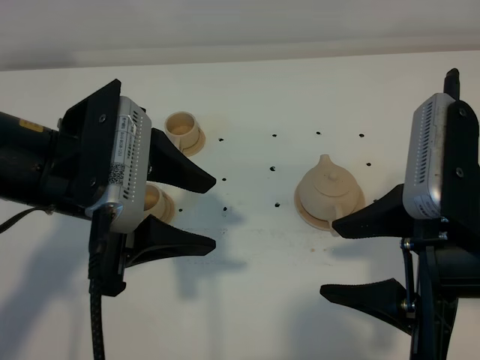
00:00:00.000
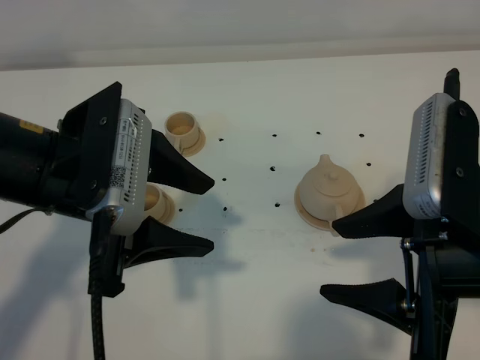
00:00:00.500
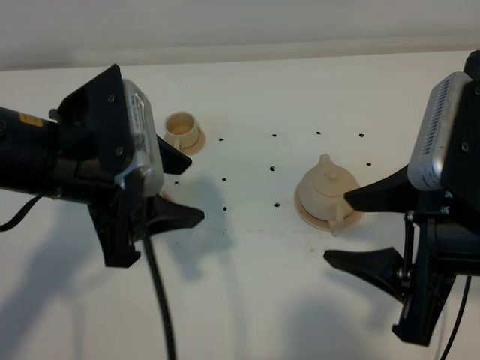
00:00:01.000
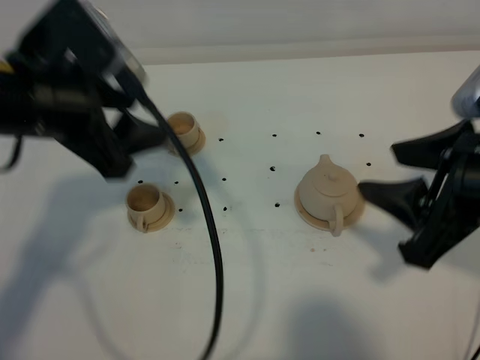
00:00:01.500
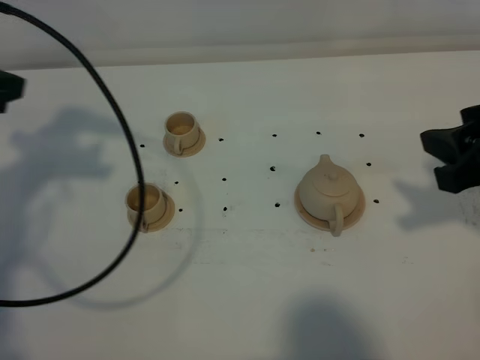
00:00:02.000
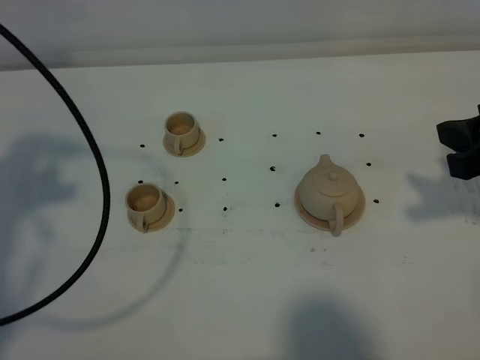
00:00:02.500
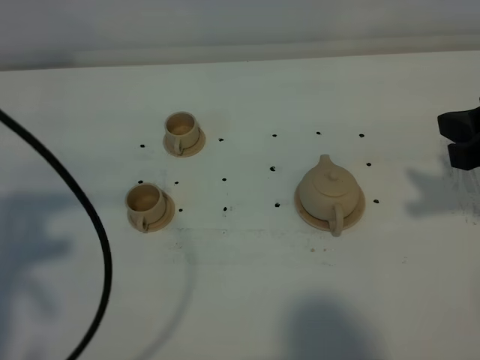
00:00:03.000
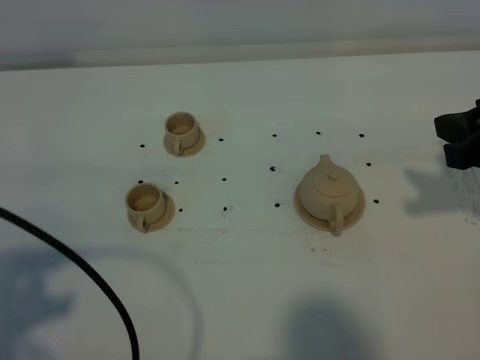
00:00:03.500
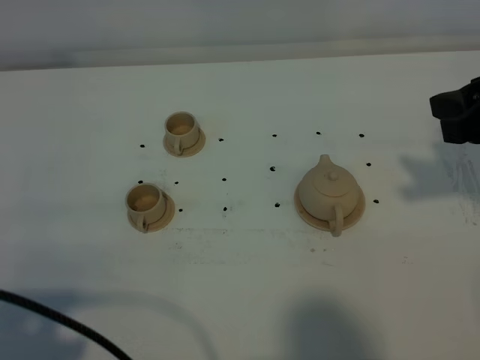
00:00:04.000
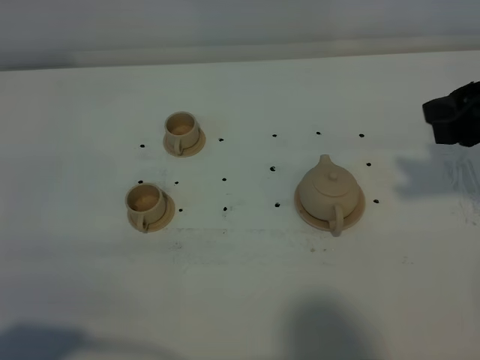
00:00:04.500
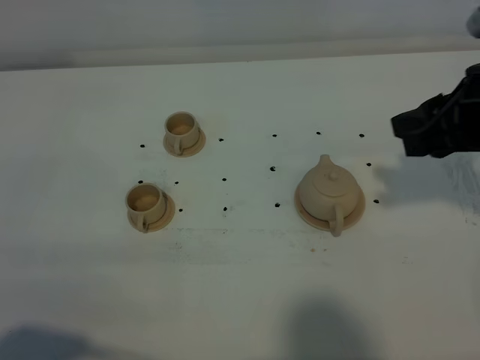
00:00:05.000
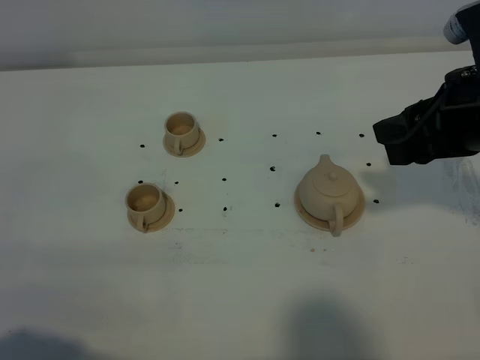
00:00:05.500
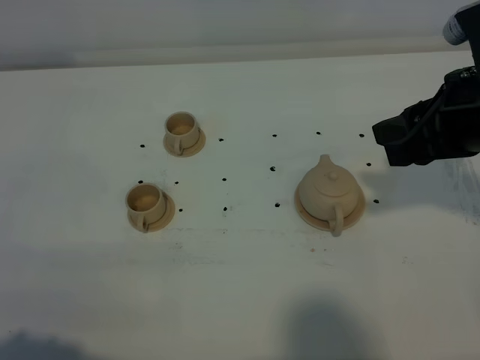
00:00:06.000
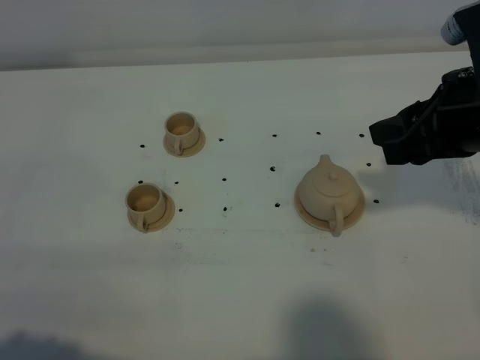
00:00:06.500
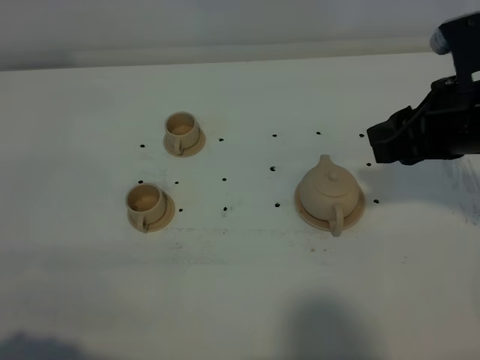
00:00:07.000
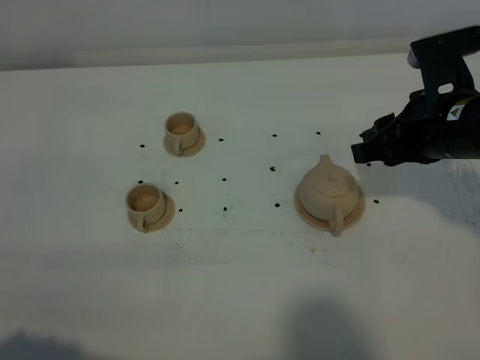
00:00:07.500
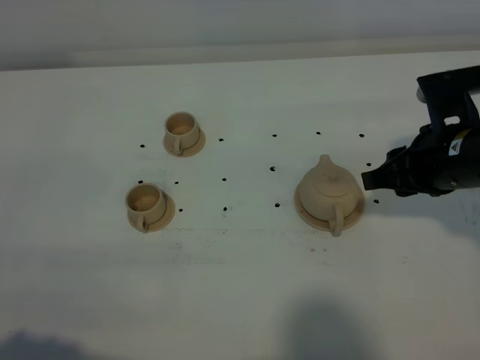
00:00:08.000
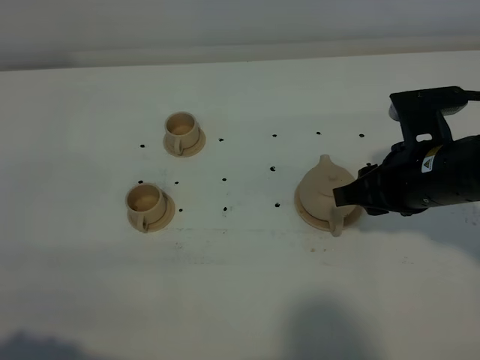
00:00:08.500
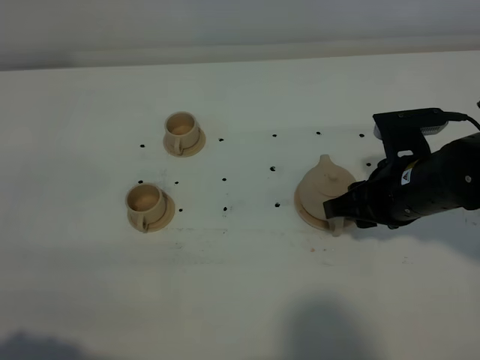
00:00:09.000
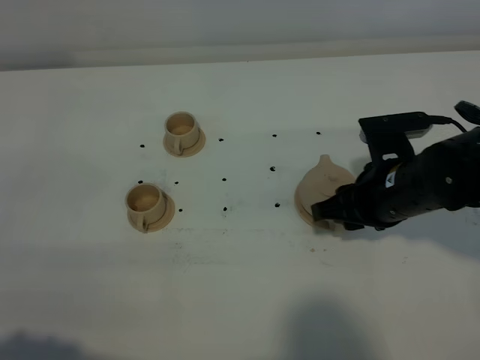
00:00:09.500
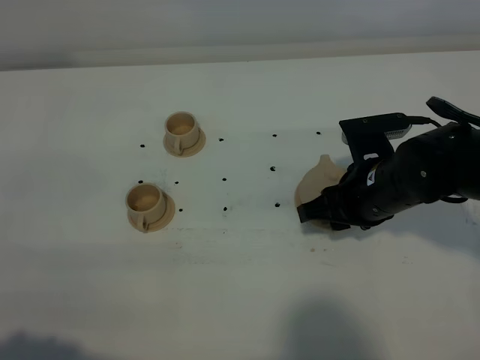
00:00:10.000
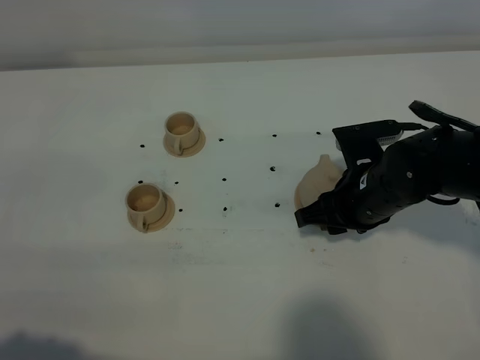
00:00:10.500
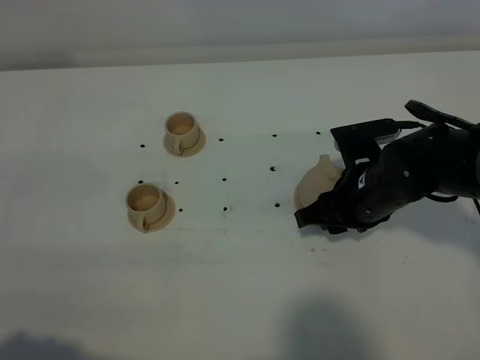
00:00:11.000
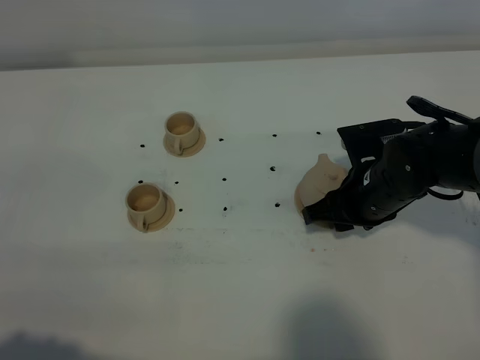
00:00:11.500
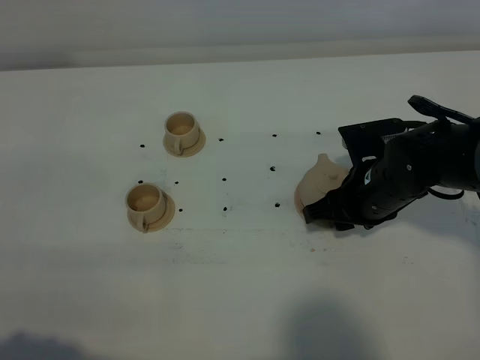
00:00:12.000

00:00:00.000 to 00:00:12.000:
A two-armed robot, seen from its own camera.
Task of the whole recording: grasp the brown teapot and pour the tea into the two brown teacups one by one, put the brown teapot back in its original place.
00:00:00.000 to 00:00:02.000: The left gripper shifts roughly 20 cm to the left and forward. The right gripper moves forward and to the right, about 10 cm.
00:00:02.000 to 00:00:04.000: The left gripper moves backward, roughly 25 cm, and closes its fingers.
00:00:04.000 to 00:00:06.000: The left gripper closes its fingers.
00:00:06.000 to 00:00:08.000: The right gripper is displaced downward by roughly 10 cm.
00:00:08.000 to 00:00:10.000: The right gripper moves to the left and downward, some 10 cm.
00:00:10.000 to 00:00:12.000: There are only small adjustments of the grippers.

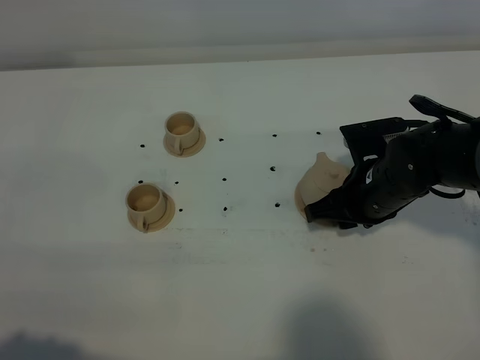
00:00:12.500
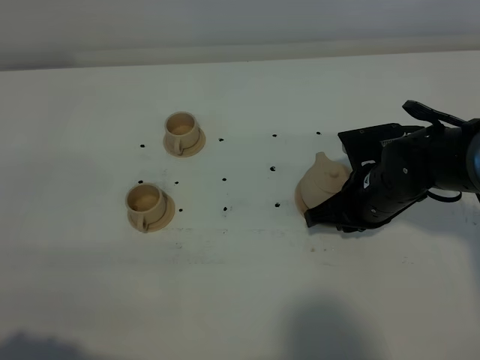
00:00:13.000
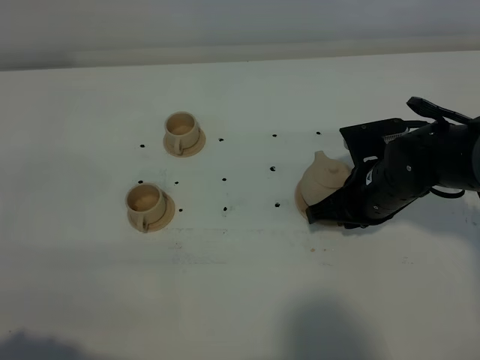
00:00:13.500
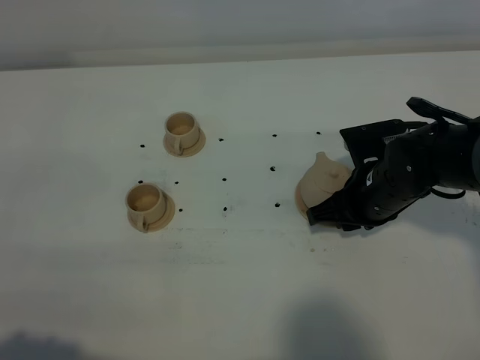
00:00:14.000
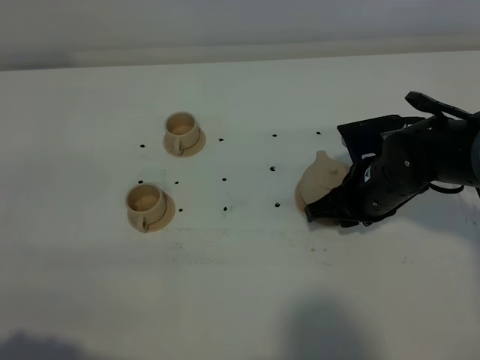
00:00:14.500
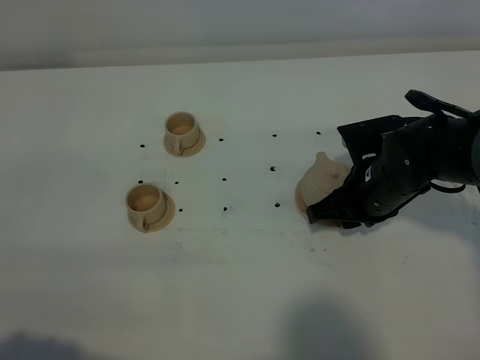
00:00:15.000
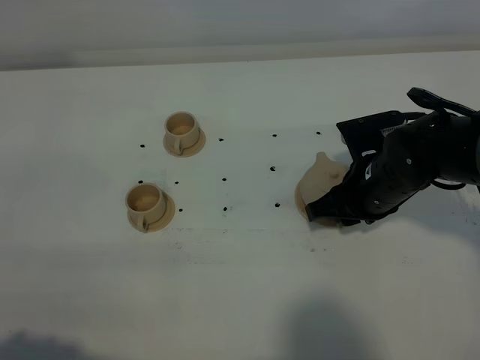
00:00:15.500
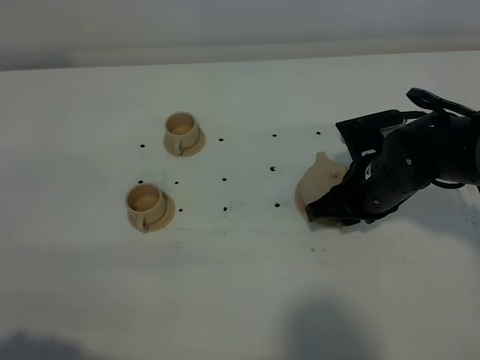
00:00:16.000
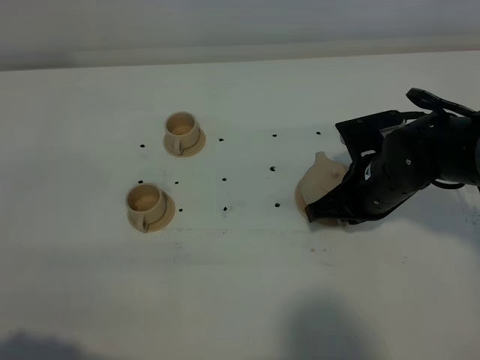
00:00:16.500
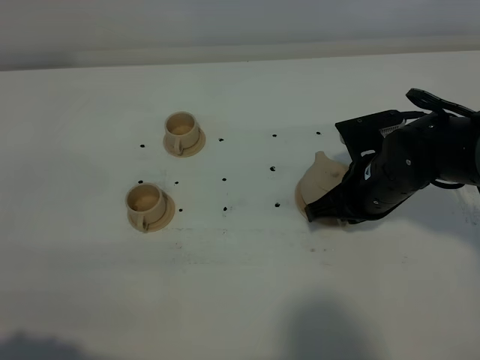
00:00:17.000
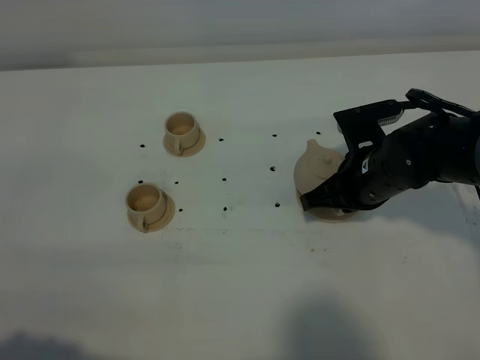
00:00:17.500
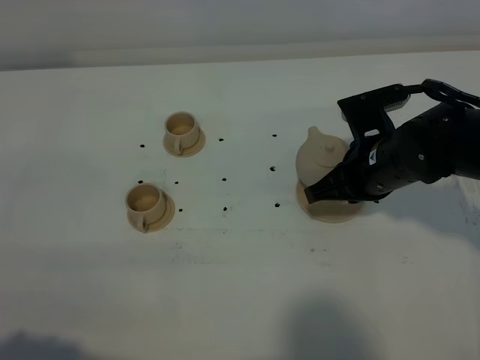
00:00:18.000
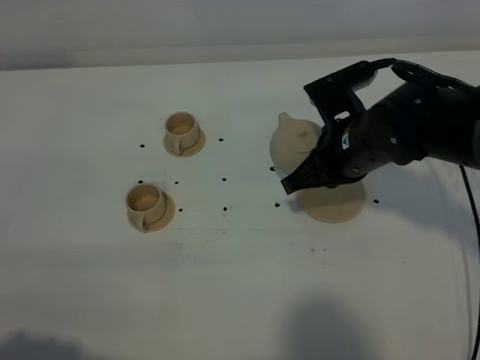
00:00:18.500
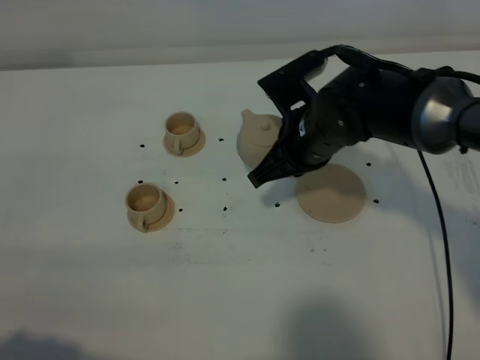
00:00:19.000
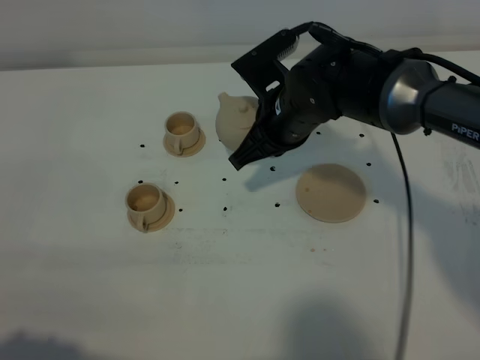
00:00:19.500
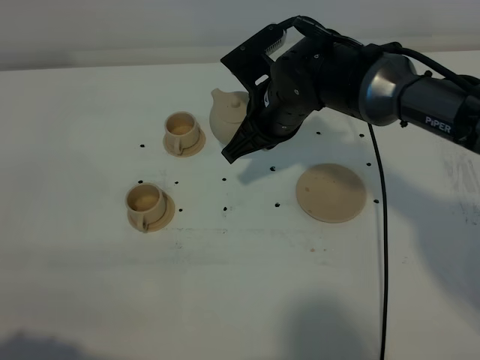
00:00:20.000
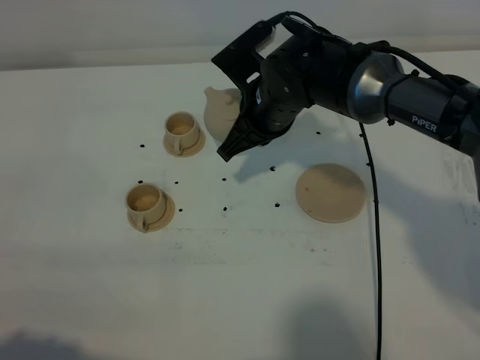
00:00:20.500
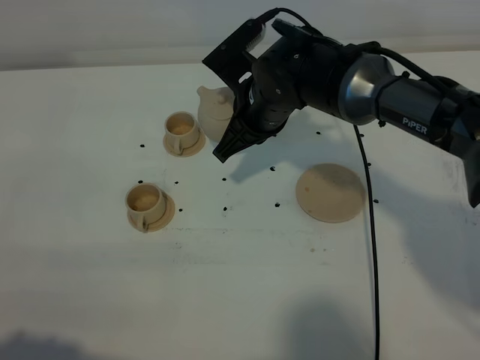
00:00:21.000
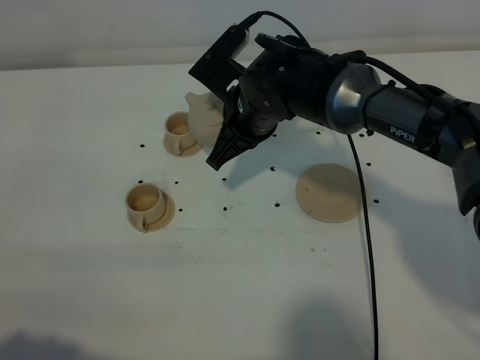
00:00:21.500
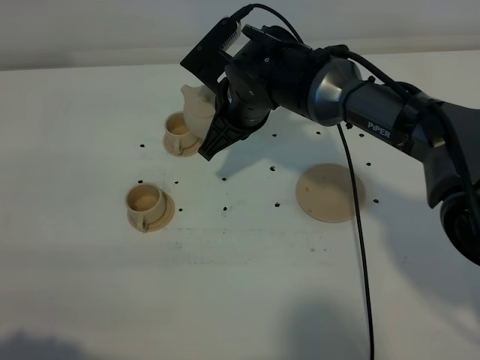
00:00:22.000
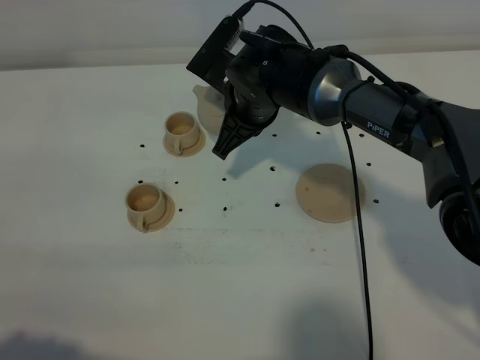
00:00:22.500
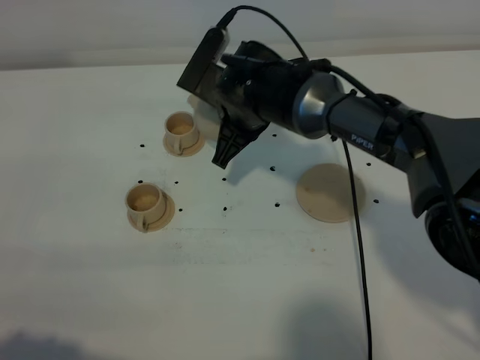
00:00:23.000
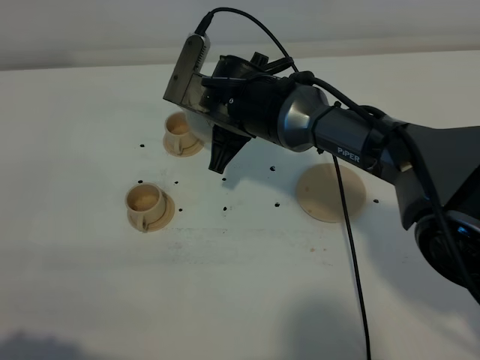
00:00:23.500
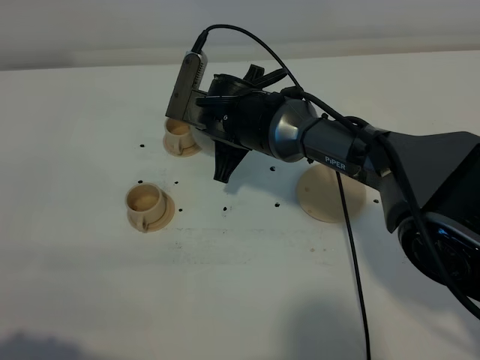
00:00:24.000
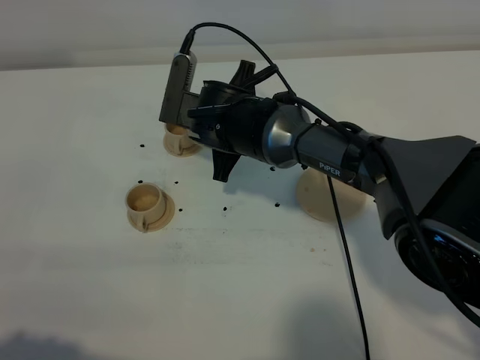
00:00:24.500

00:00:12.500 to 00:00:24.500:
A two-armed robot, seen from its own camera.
Task of the whole recording: grasp the brown teapot and pour the tea into the two brown teacups one by one, put the brown teapot back in its original place.
Step, 00:00:12.500 to 00:00:17.500: Pick up the teapot with the right gripper.
00:00:12.500 to 00:00:14.500: Both grippers stay put.
00:00:14.500 to 00:00:16.500: The right gripper closes.
00:00:16.500 to 00:00:18.500: The right gripper shifts by about 5 cm.
00:00:18.500 to 00:00:20.500: The right gripper goes about 10 cm to the left and forward.
00:00:20.500 to 00:00:22.500: The grippers stay close to where they were, moving slightly.
00:00:22.500 to 00:00:24.500: The right gripper changes place by some 5 cm.

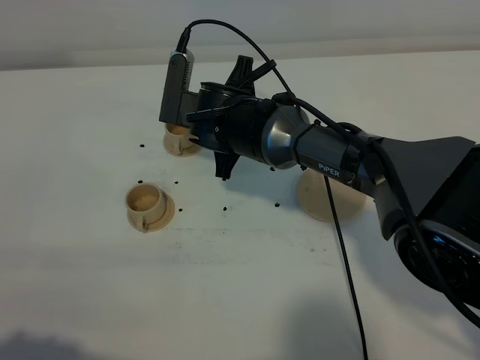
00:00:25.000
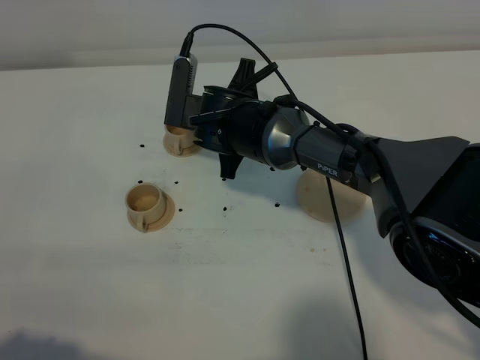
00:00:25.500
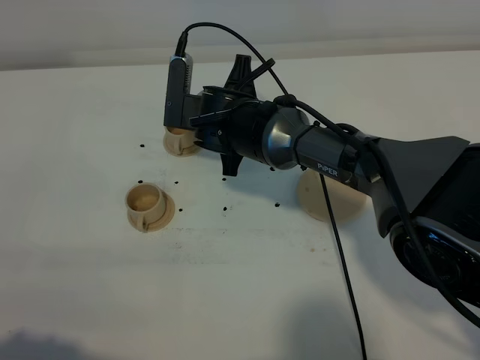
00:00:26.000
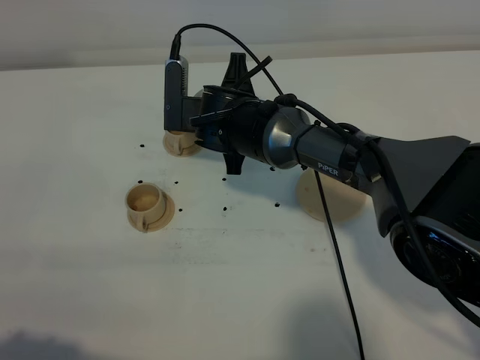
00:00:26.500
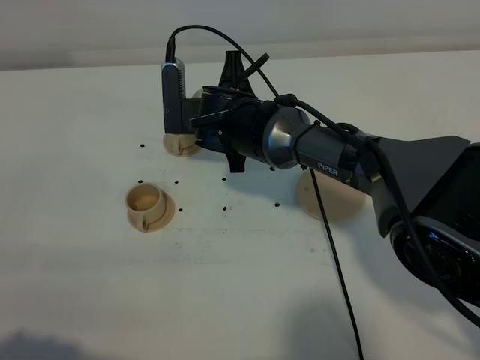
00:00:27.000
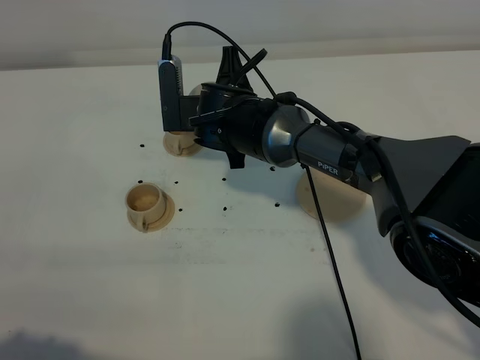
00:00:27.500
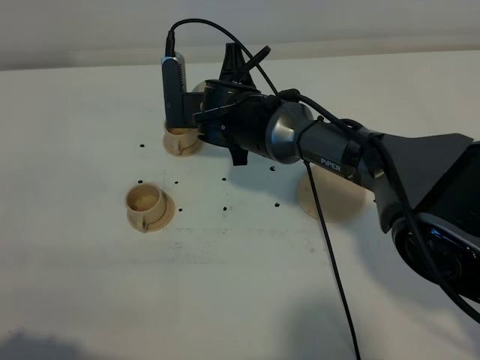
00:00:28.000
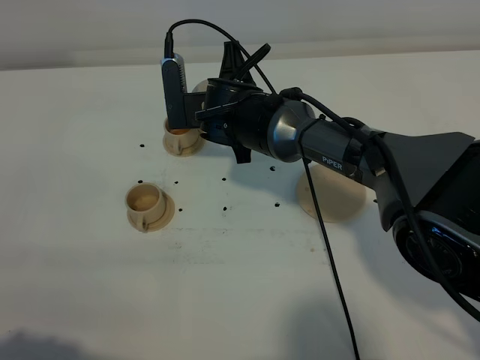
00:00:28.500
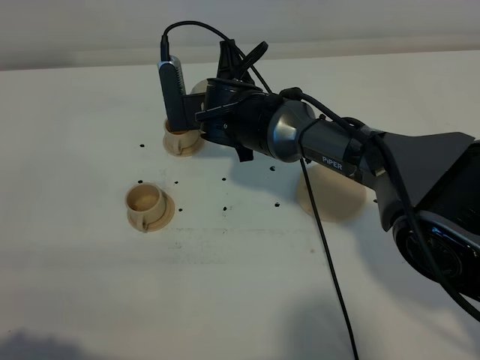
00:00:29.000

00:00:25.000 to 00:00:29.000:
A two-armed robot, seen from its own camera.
Task of the whole recording: grasp the brown teapot and pour the tea into the two brown teacups one by one, put the brown teapot back in its original place.
00:00:25.000 to 00:00:27.000: The grippers stay close to where they were, moving slightly.
00:00:27.000 to 00:00:29.000: The grippers move only a little.
